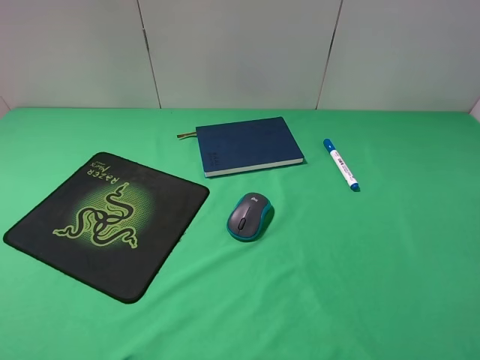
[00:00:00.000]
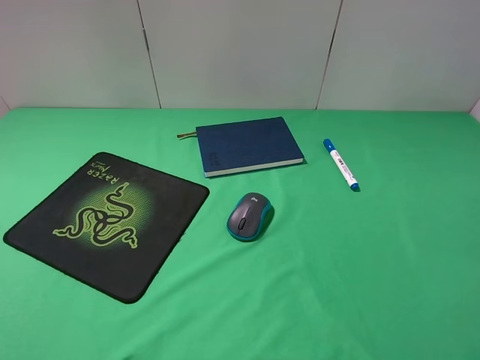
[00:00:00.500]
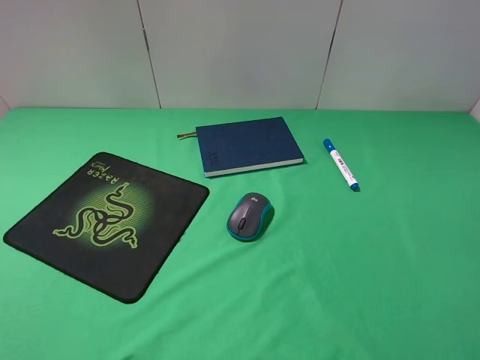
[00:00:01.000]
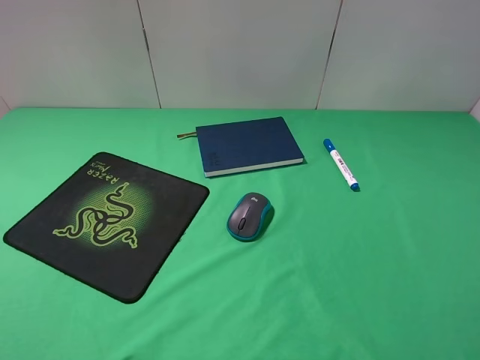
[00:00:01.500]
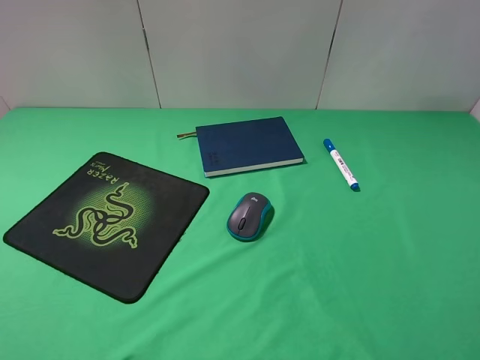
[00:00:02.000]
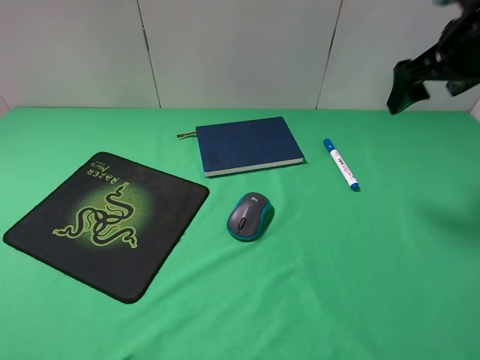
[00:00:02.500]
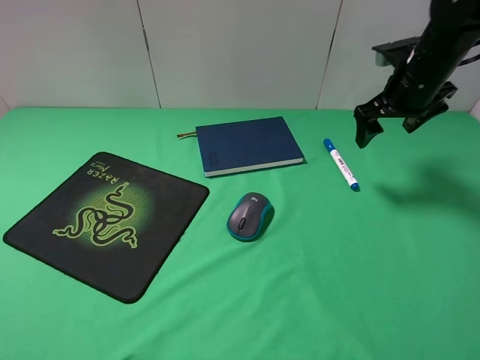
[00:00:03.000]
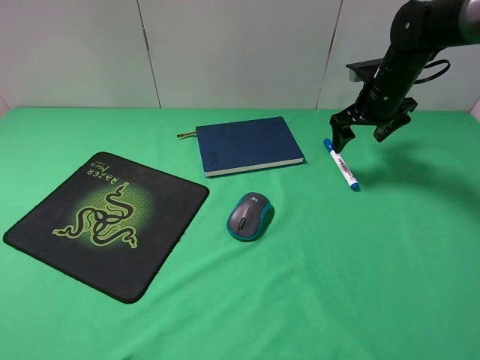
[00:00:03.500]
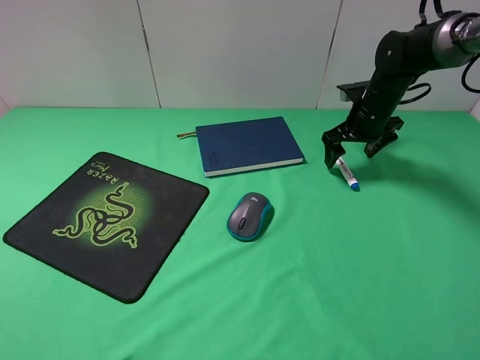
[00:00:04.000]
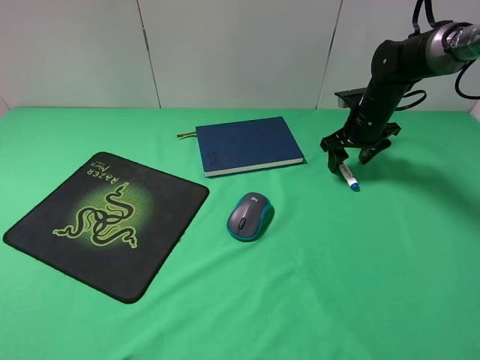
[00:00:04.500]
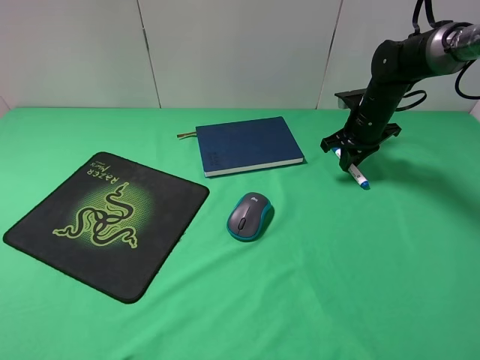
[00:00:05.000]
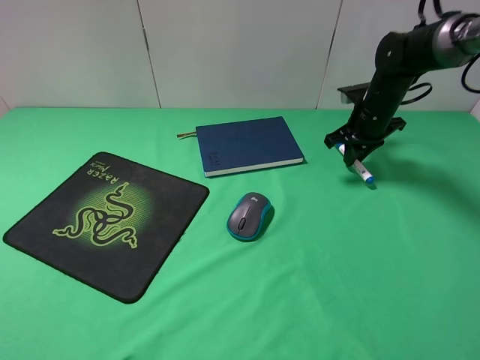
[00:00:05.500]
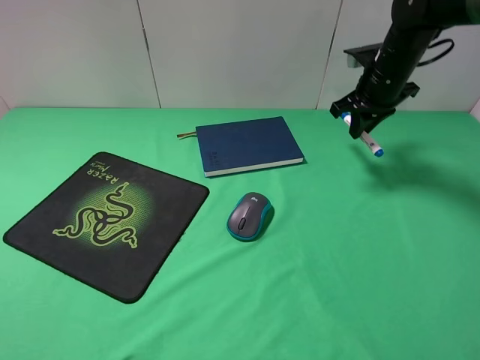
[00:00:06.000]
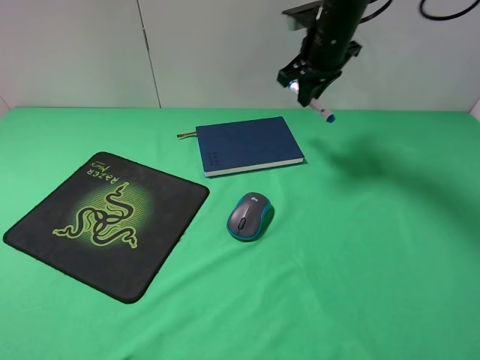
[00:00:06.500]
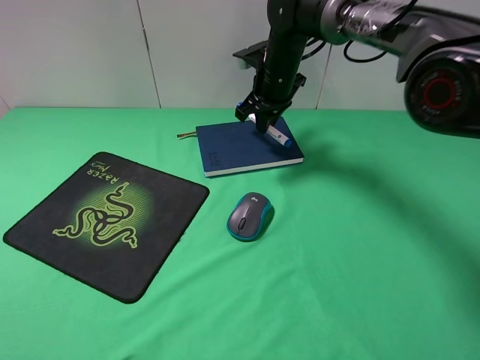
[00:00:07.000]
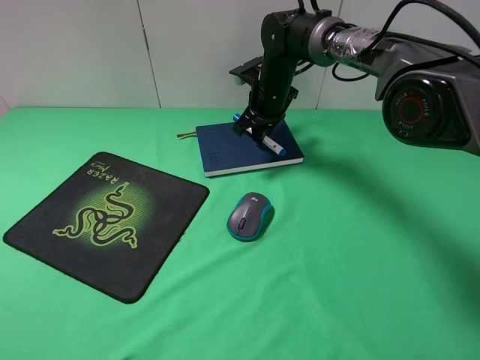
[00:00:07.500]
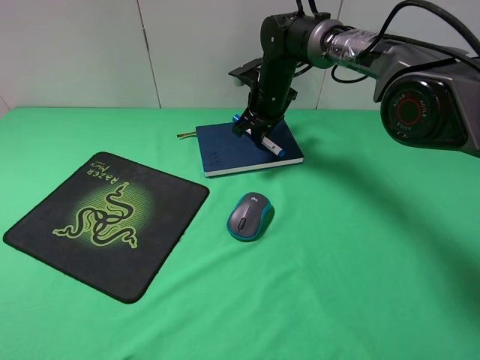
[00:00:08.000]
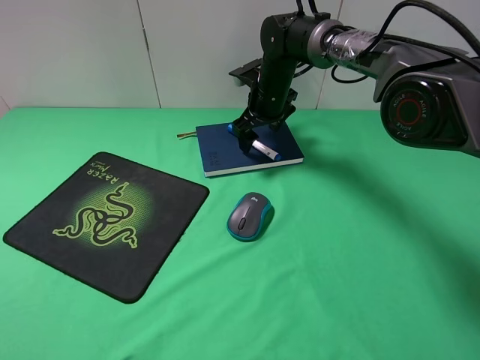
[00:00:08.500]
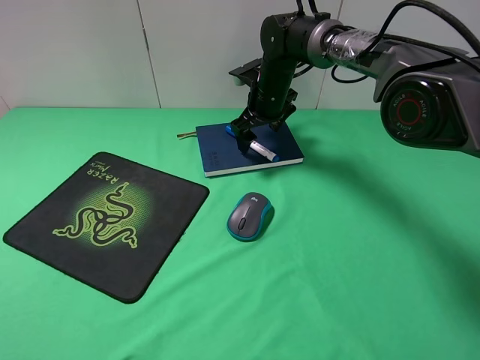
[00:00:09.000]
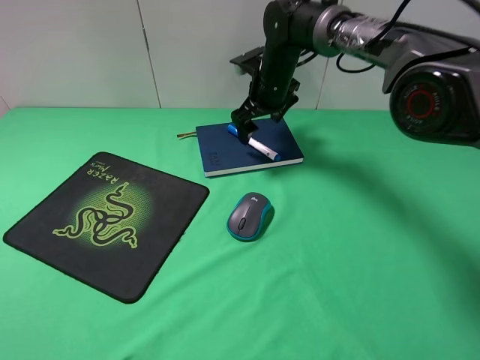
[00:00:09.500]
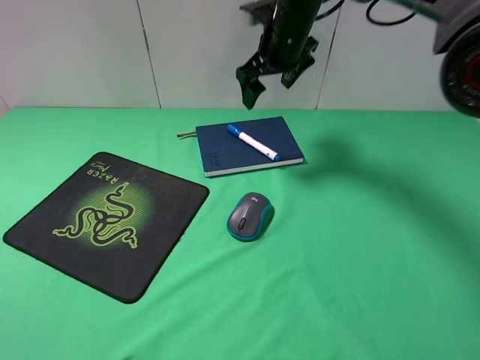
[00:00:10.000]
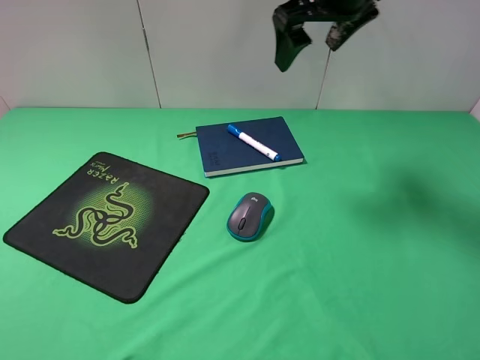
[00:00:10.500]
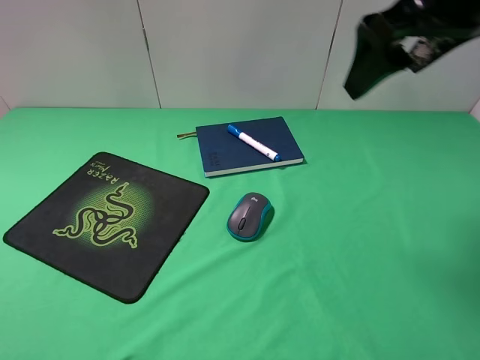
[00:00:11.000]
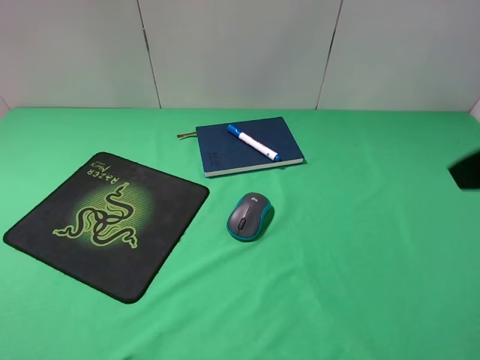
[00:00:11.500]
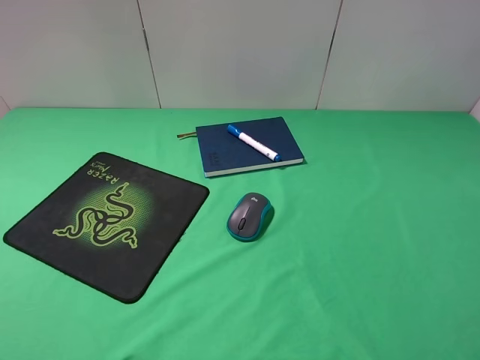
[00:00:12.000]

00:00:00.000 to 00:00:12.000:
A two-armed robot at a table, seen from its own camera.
Step, 00:00:00.000 to 00:00:04.500: Grasp the marker with the right gripper.
Step, 00:00:05.000 to 00:00:08.500: Place the marker on the notebook with the right gripper.
00:00:02.000 to 00:00:04.000: The right gripper goes about 35 cm downward and forward.
00:00:04.000 to 00:00:06.000: The right gripper moves upward, about 10 cm, and closes its fingers.
00:00:06.000 to 00:00:08.000: The right gripper travels to the left and downward by some 20 cm.
00:00:08.000 to 00:00:10.000: The right gripper heads upward, covering roughly 10 cm, and opens its fingers.
00:00:10.000 to 00:00:12.000: The right gripper goes approximately 50 cm backward and to the right.

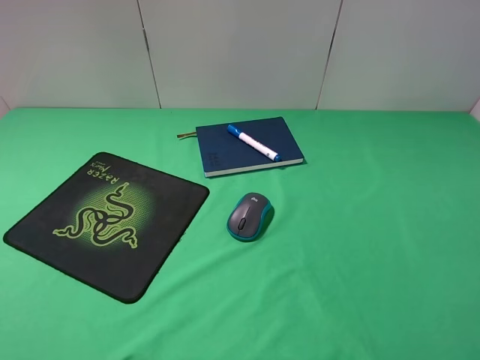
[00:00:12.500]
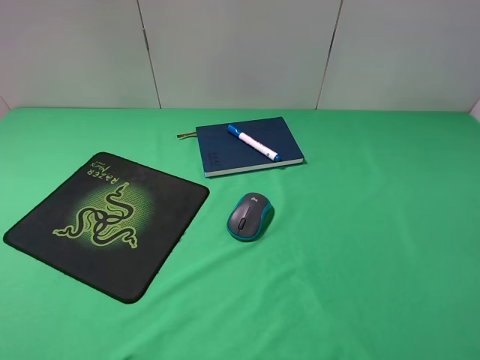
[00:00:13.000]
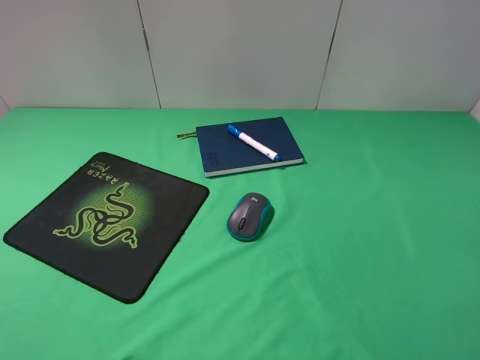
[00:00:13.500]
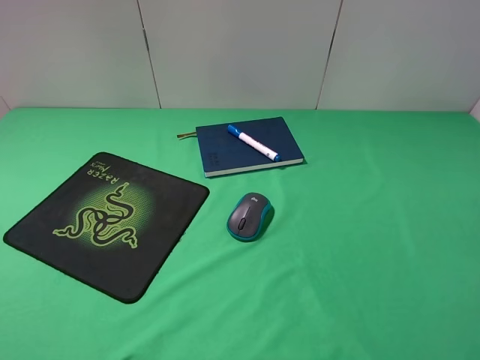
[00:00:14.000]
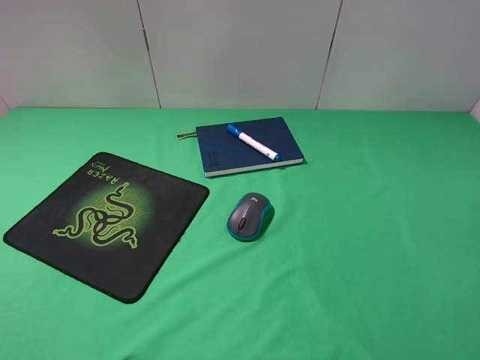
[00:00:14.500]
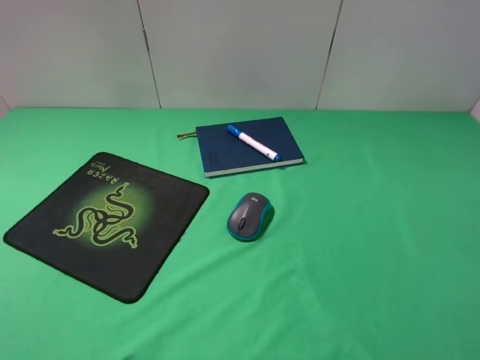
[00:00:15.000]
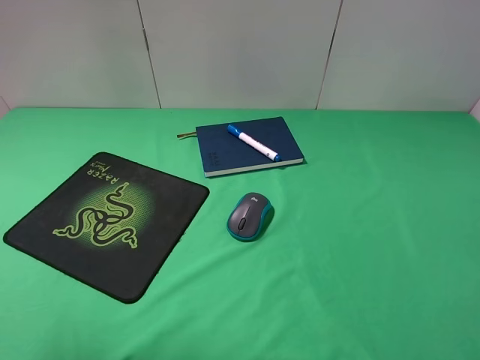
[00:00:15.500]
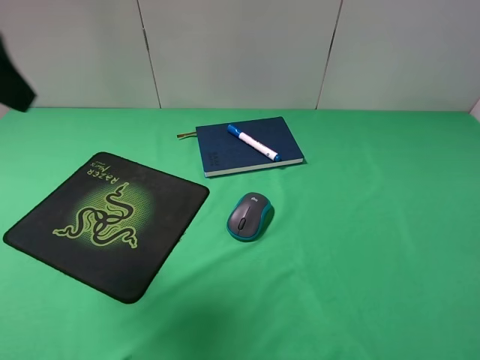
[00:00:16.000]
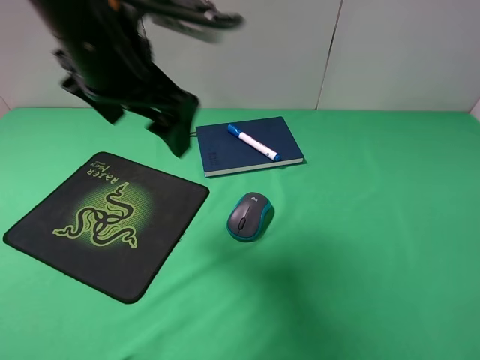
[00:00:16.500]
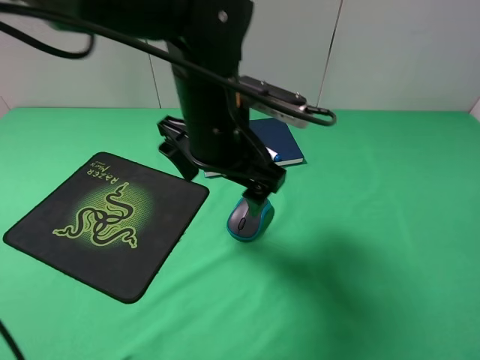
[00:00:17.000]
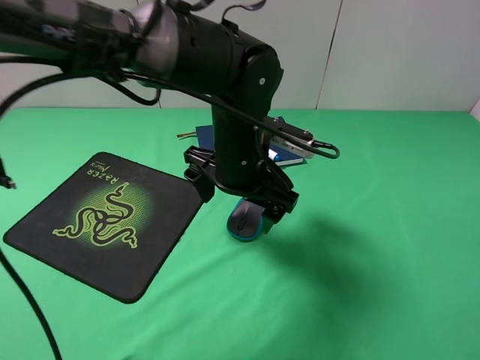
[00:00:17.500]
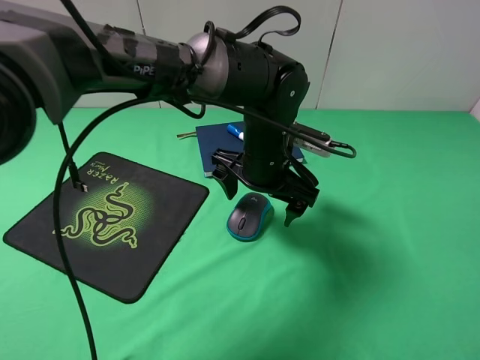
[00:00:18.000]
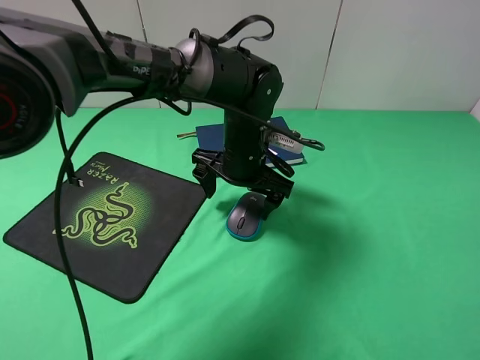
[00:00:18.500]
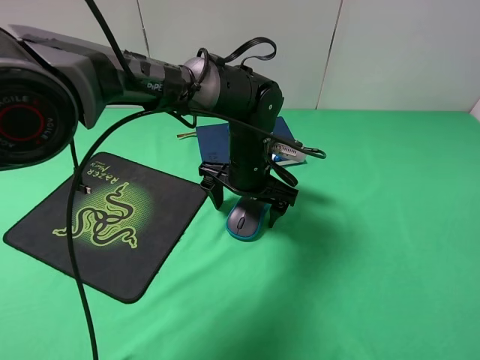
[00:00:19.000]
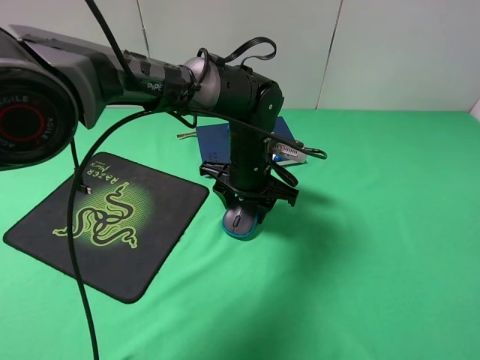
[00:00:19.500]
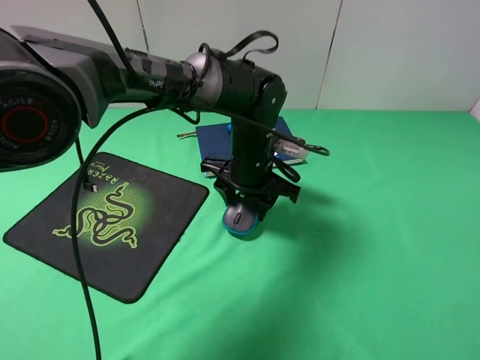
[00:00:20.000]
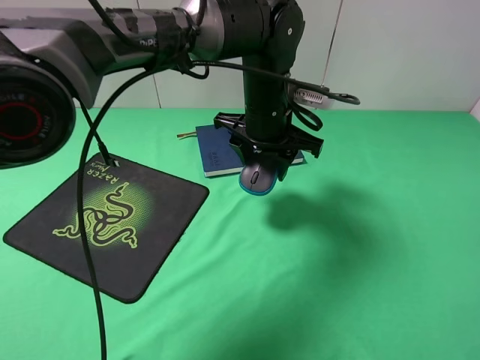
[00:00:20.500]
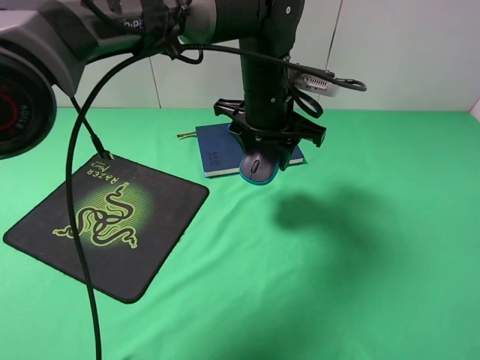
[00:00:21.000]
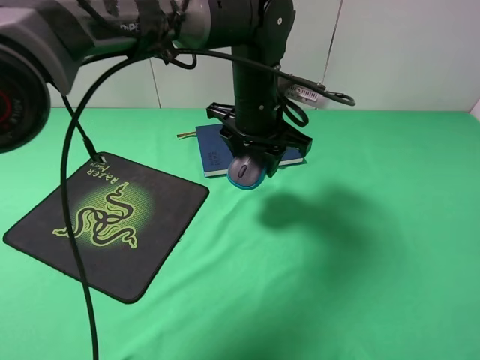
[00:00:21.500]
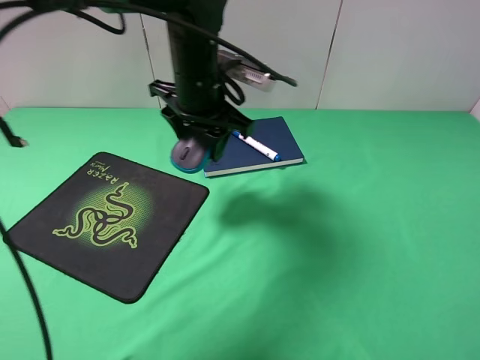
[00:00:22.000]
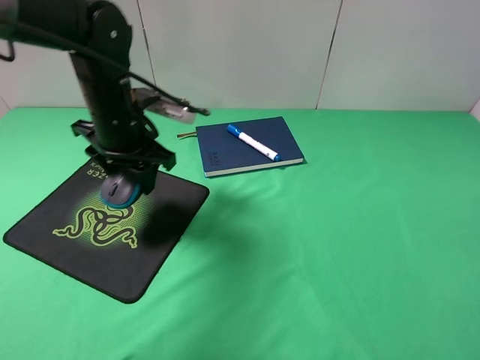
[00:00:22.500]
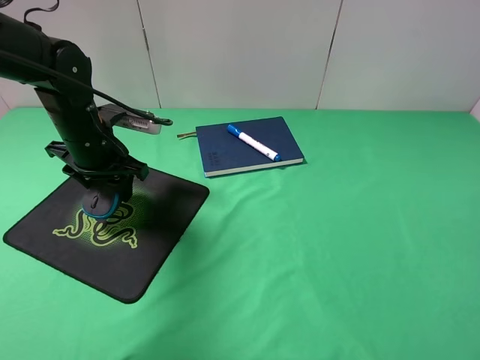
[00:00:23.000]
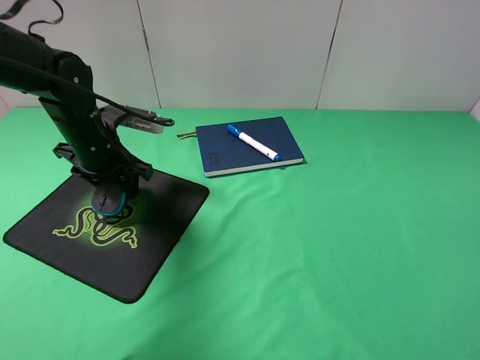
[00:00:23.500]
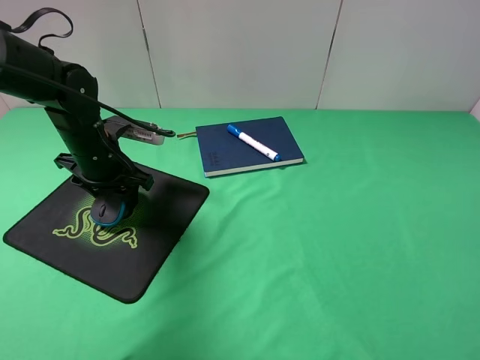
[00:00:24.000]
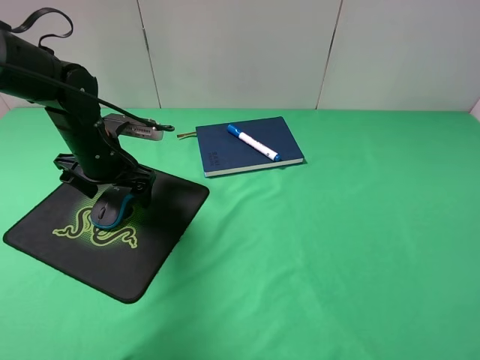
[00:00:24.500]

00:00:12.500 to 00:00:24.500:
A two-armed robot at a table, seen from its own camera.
Step, 00:00:12.500 to 00:00:19.500: Grasp the mouse with the left gripper.
00:00:14.500 to 00:00:16.500: The left gripper travels forward and to the right by about 35 cm.
00:00:16.500 to 00:00:18.500: The left gripper is displaced downward, to the right and forward by approximately 25 cm.
00:00:18.500 to 00:00:20.500: The left gripper goes about 5 cm upward, and closes up.
00:00:20.500 to 00:00:22.500: The left gripper travels to the left by about 20 cm.
00:00:22.500 to 00:00:24.500: The left gripper shifts approximately 10 cm downward and to the left, and opens.

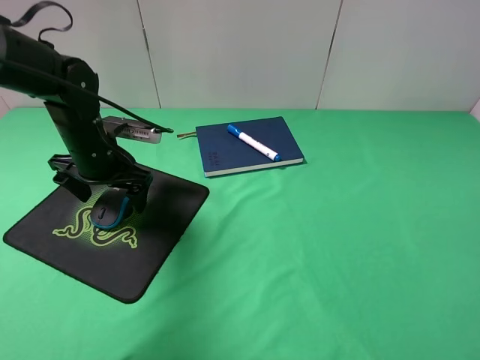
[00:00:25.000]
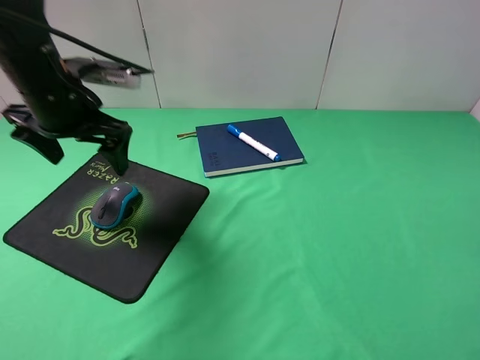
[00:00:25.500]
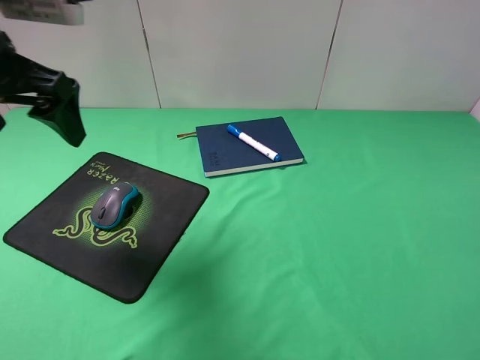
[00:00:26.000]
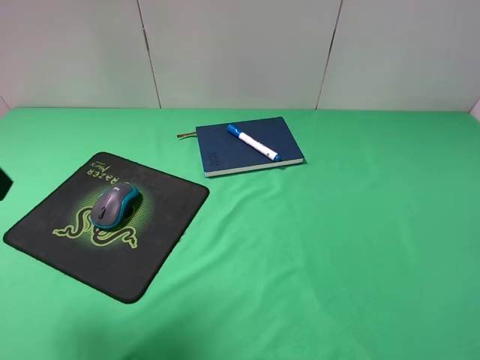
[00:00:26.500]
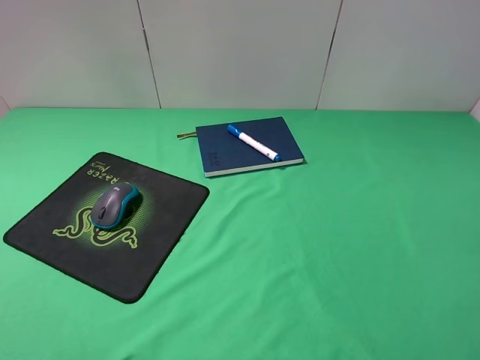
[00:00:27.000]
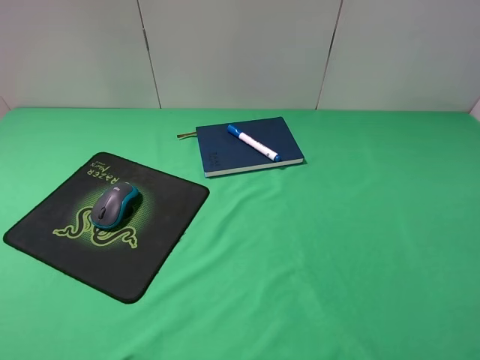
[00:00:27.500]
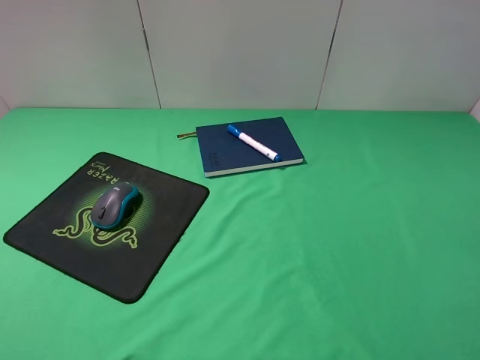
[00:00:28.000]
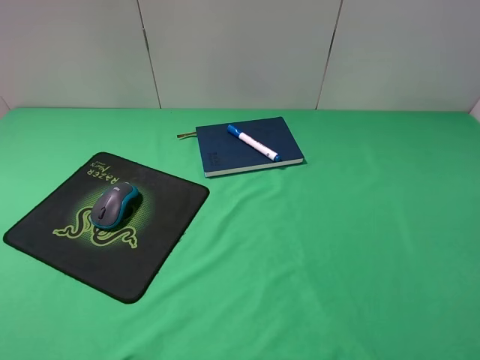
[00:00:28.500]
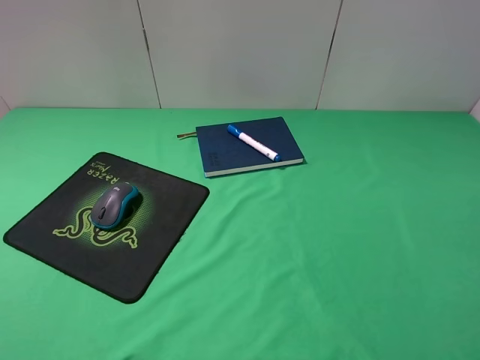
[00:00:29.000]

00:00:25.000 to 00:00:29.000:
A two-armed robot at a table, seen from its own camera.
00:00:25.000 to 00:00:27.000: The left gripper is displaced backward and upward by about 35 cm.
